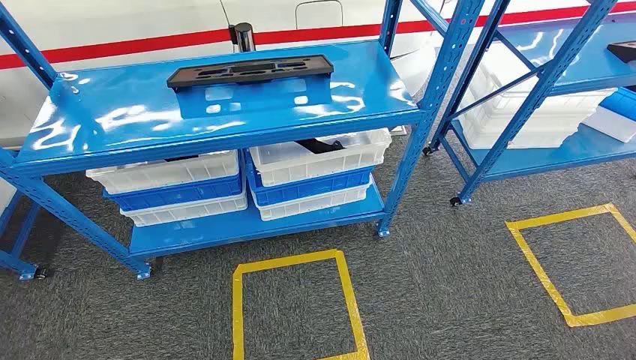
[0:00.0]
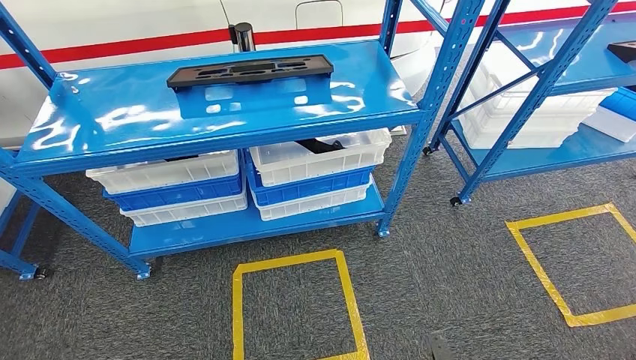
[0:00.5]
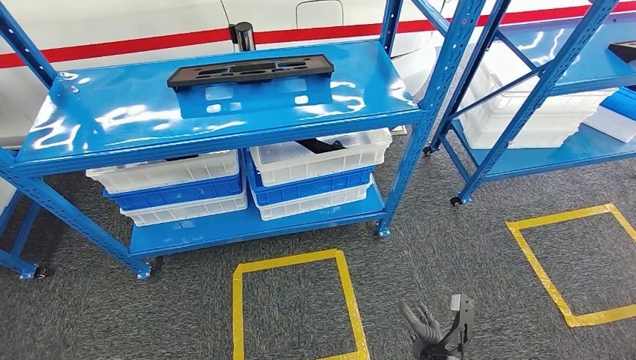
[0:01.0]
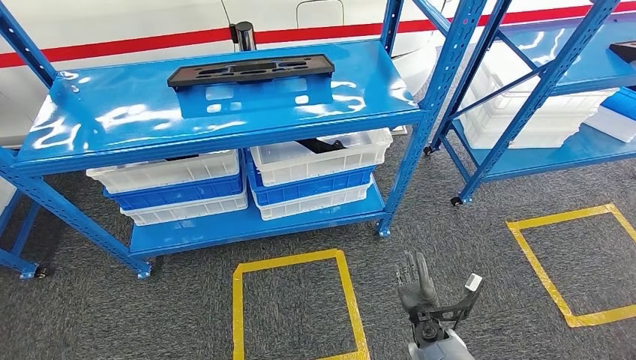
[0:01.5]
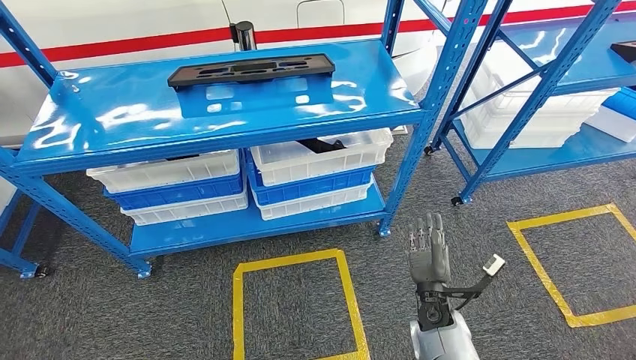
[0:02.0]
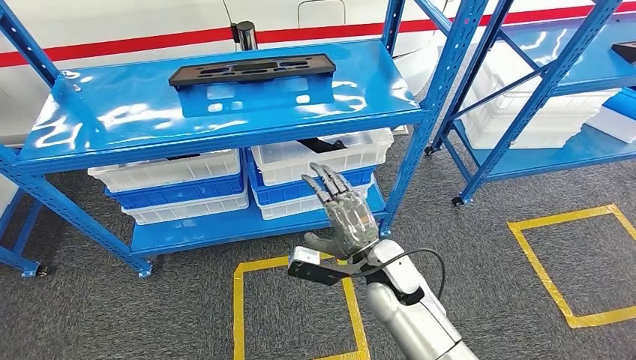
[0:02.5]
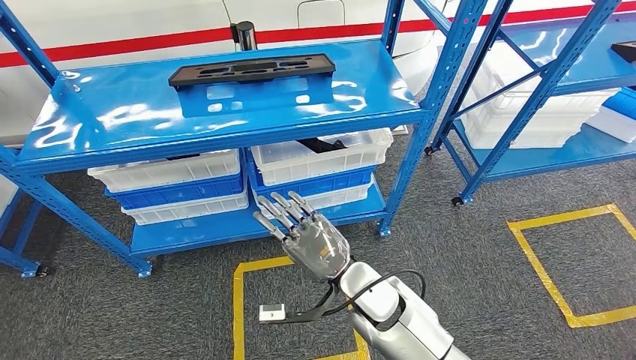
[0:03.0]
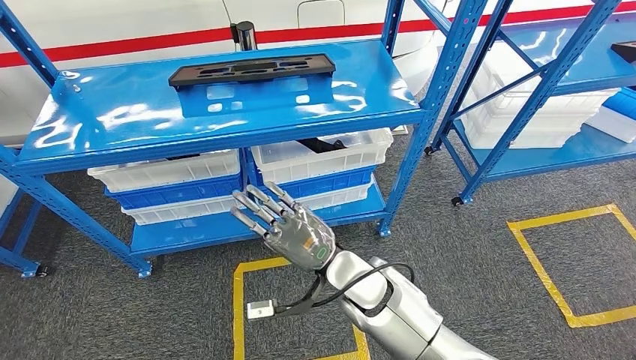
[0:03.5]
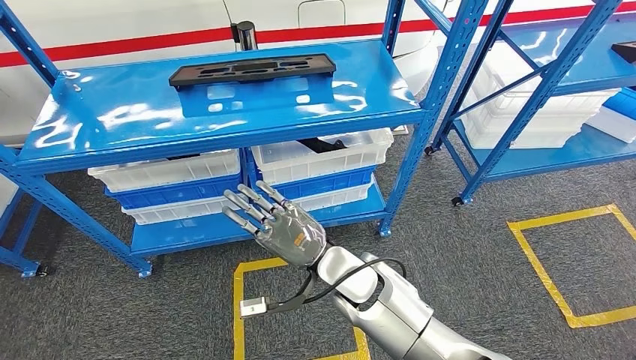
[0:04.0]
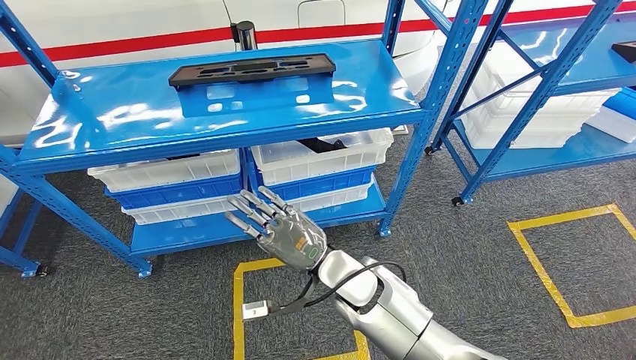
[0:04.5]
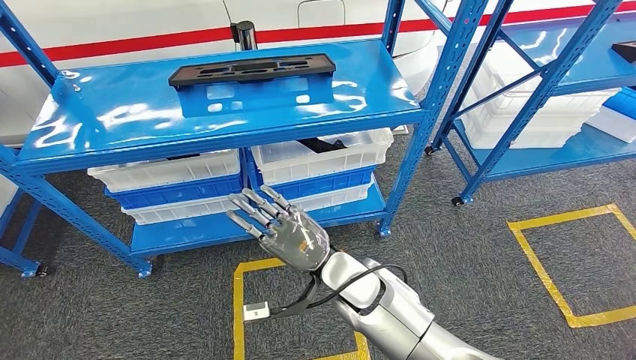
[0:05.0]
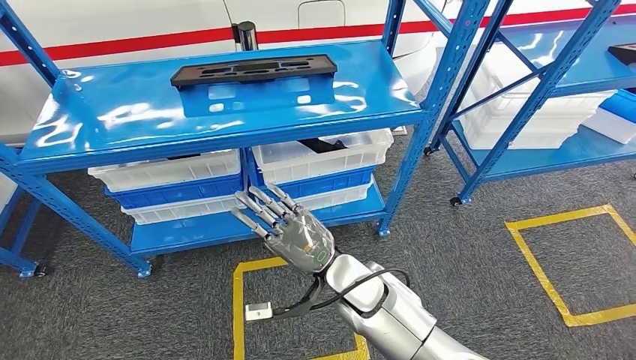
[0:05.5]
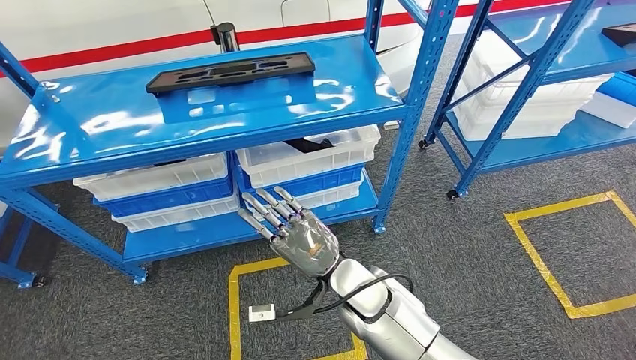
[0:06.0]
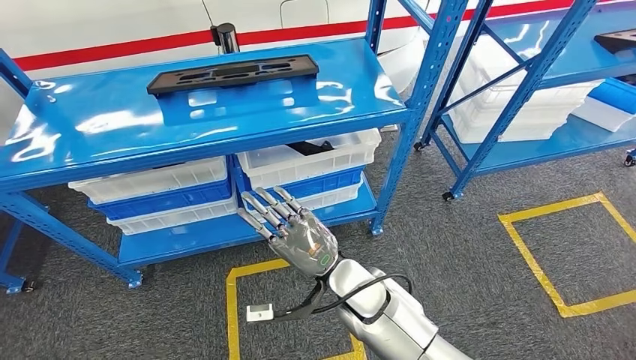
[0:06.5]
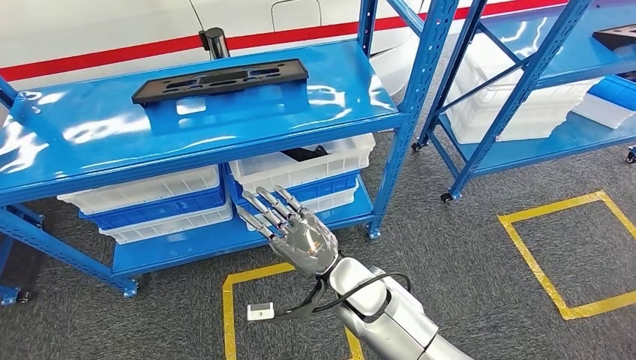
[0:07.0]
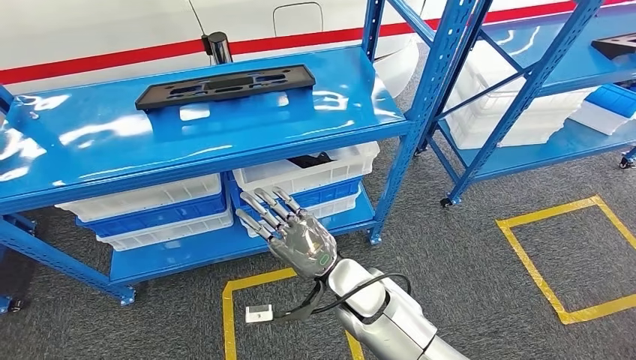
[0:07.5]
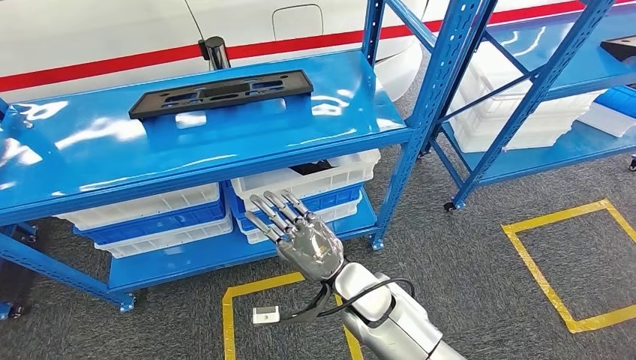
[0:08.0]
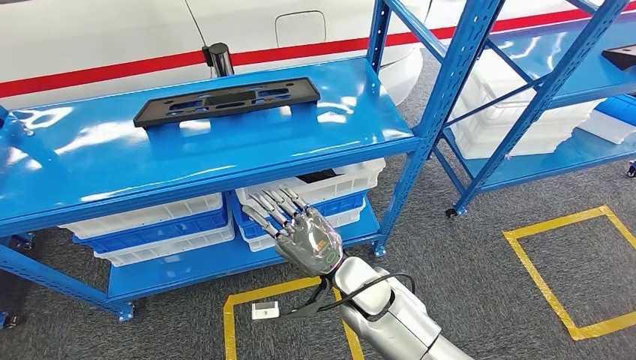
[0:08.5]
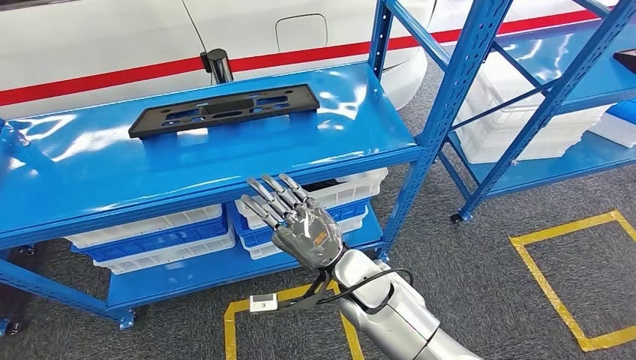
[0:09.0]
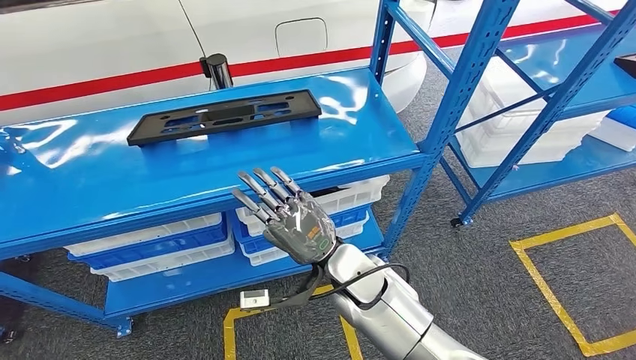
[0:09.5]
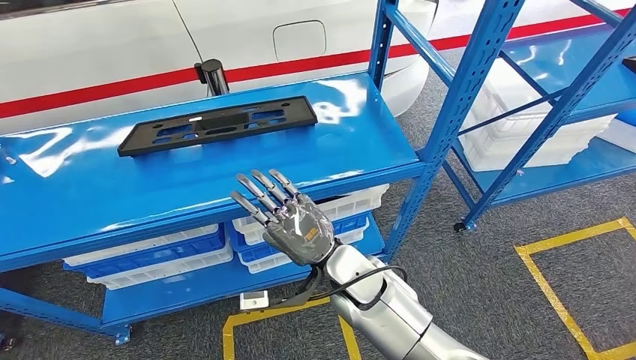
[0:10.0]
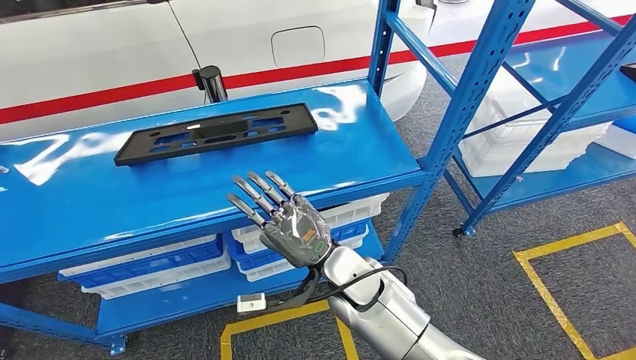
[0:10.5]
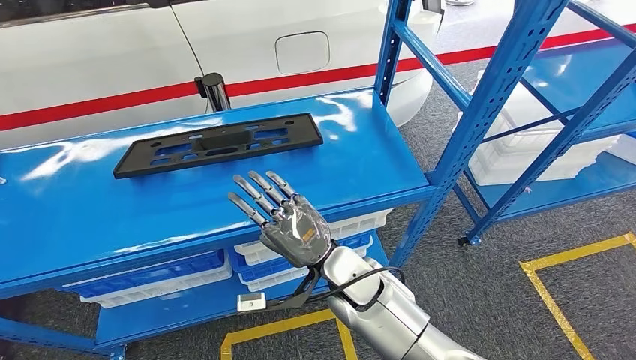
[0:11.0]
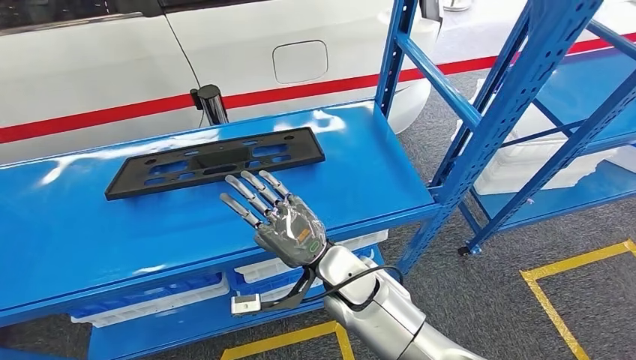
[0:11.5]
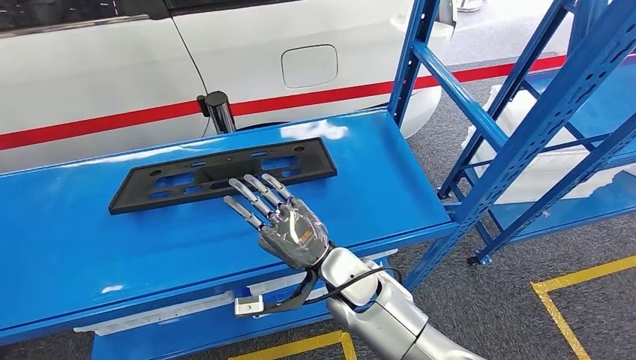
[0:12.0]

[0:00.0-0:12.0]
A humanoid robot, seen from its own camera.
0:02.0 to 0:04.0: The right hand shifts some 25 cm to the left and upward.

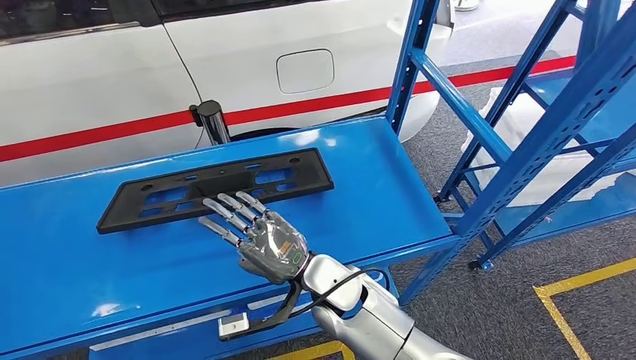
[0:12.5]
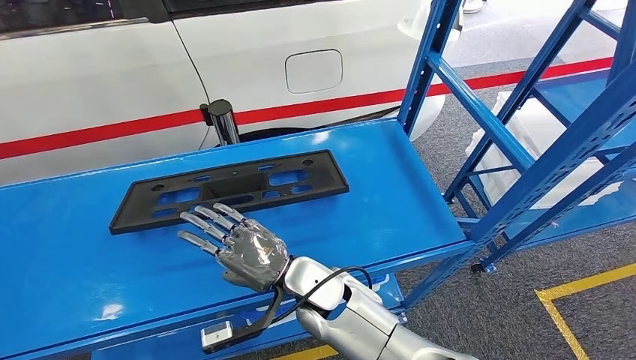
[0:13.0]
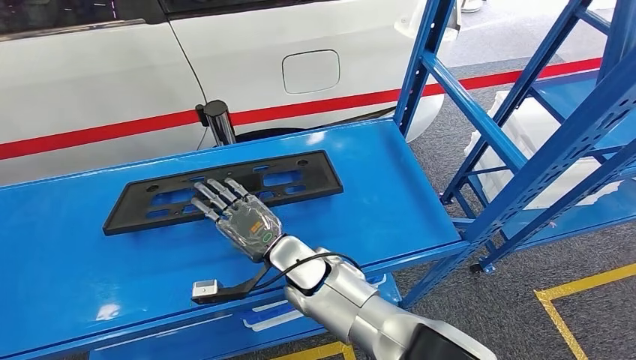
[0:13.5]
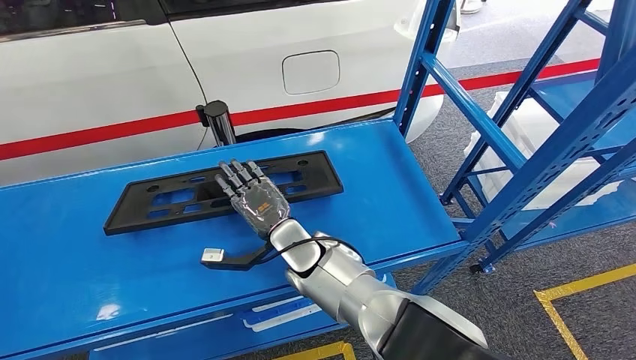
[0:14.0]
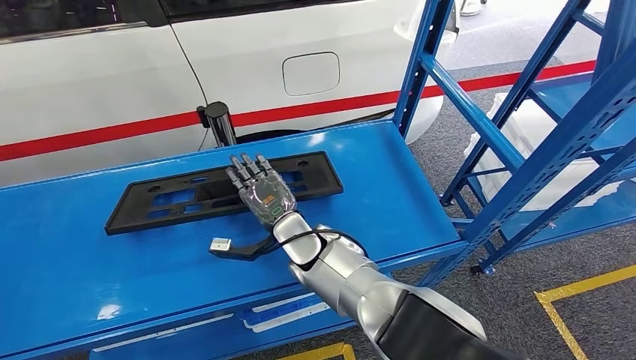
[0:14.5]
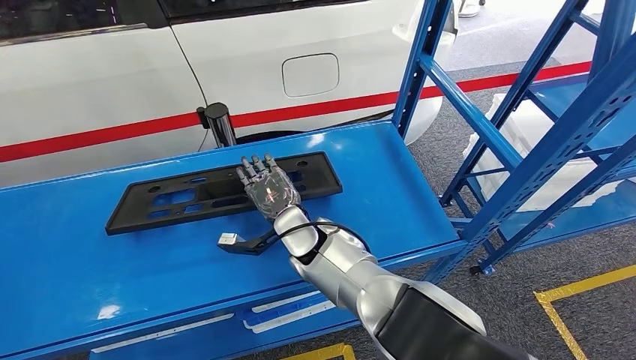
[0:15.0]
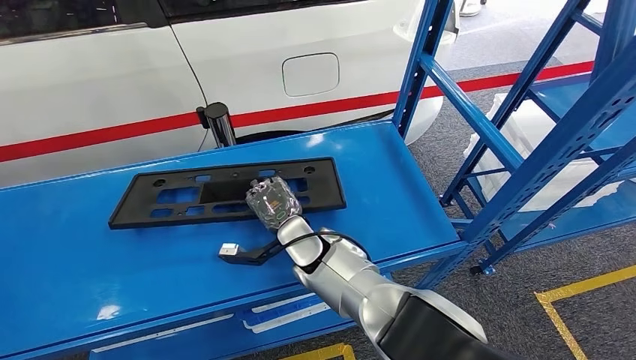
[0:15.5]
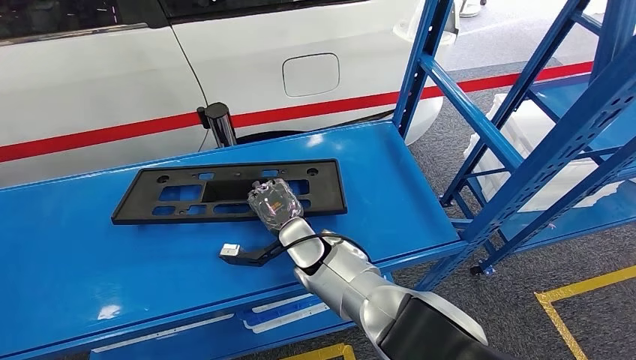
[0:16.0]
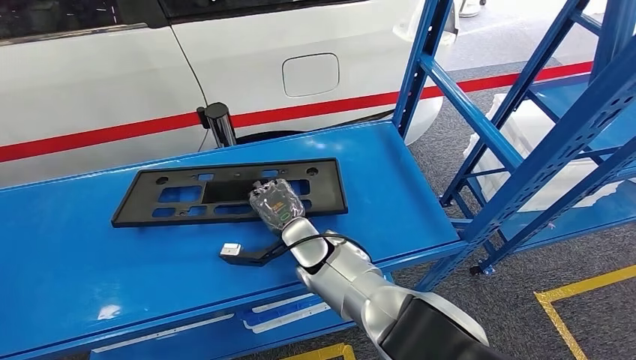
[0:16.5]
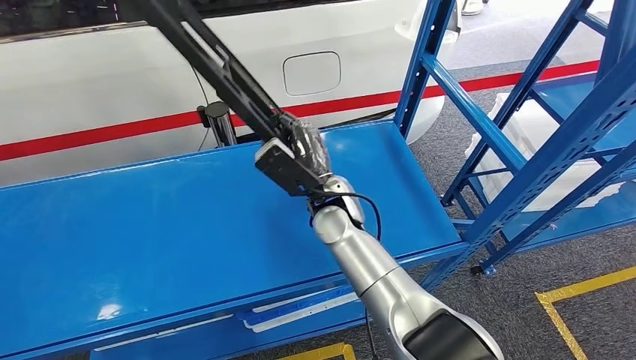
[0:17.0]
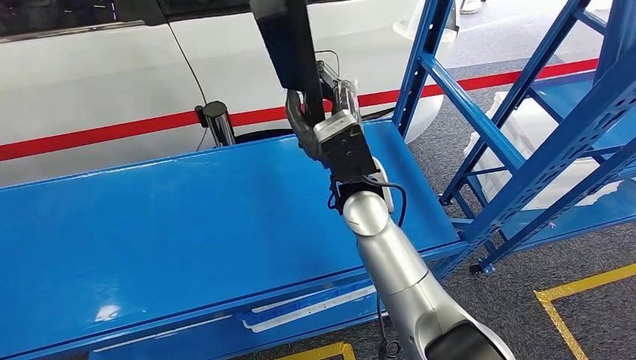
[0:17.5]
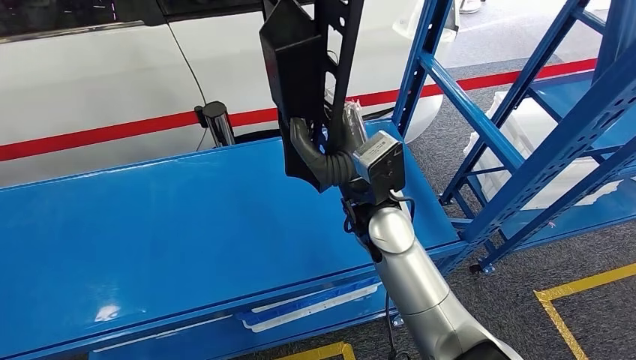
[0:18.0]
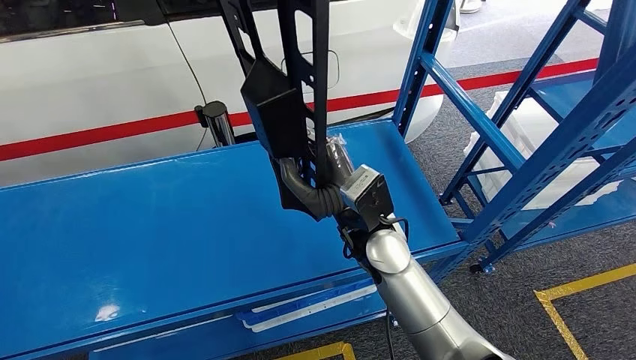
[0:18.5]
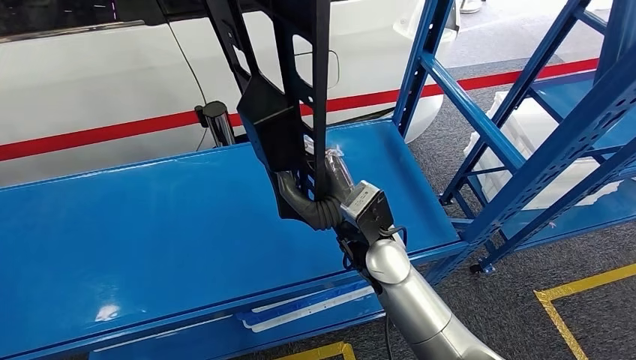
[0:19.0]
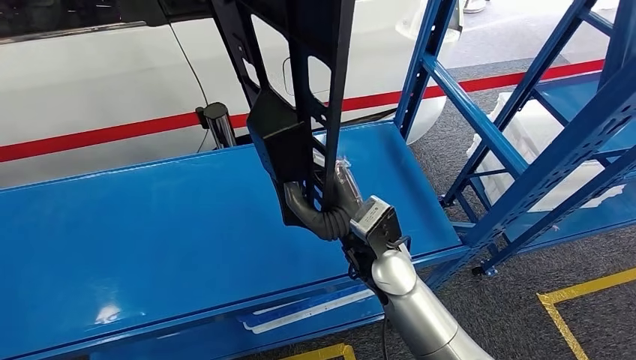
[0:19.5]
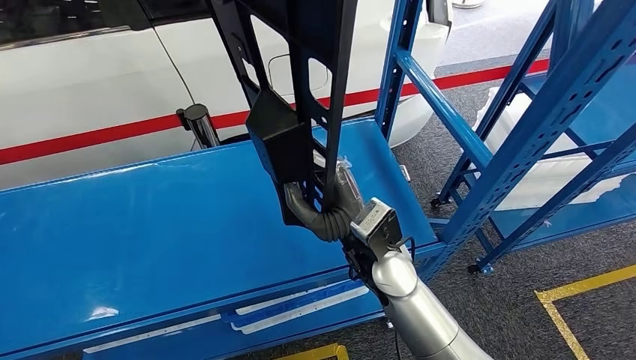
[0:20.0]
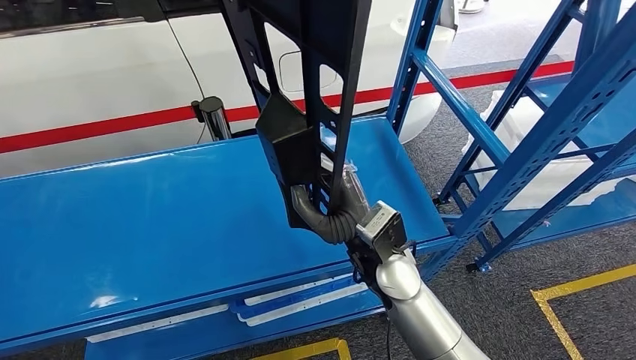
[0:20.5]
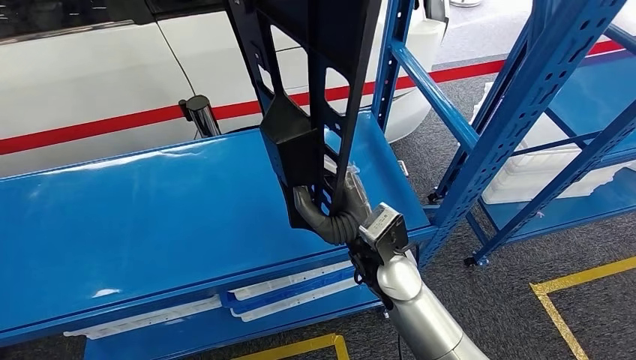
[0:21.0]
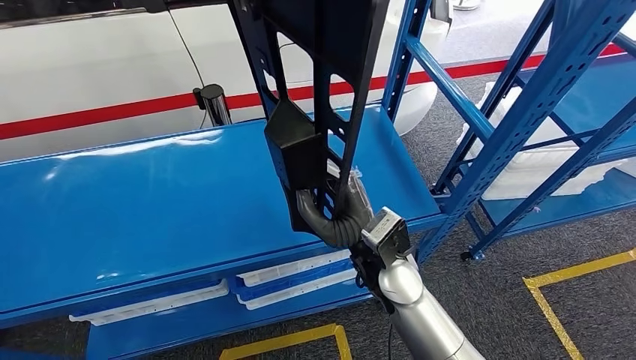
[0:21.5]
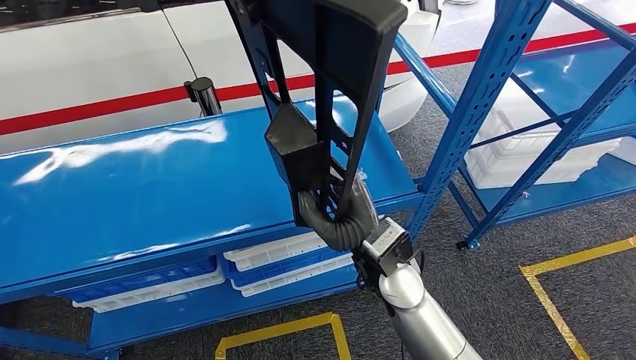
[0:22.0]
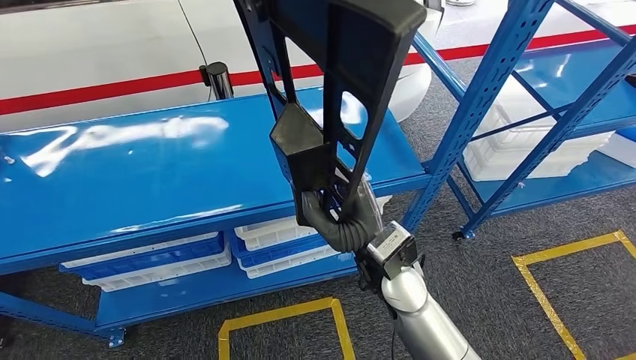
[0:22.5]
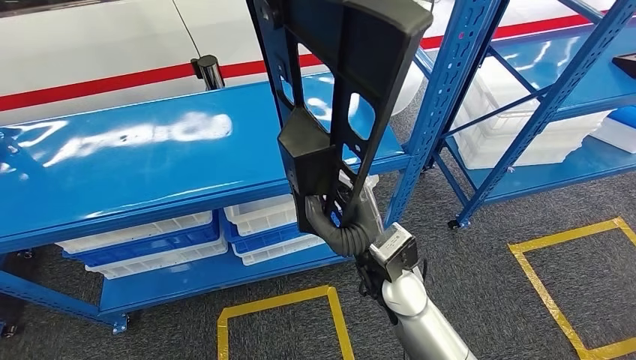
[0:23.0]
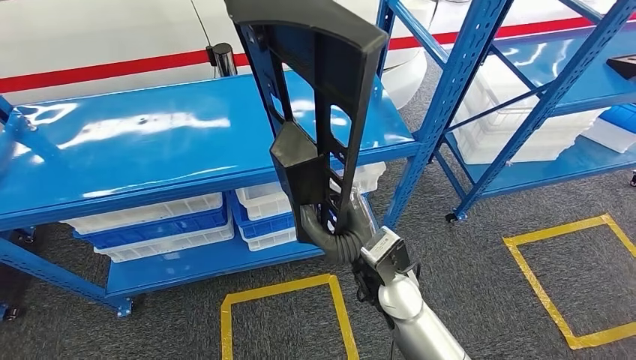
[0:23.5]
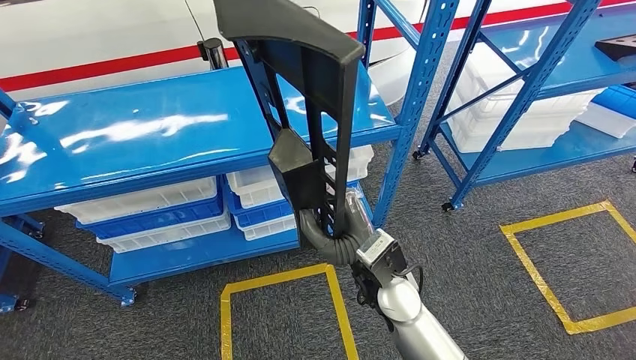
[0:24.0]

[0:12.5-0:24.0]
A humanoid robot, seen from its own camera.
Step, 0:12.5 to 0:17.5: Pick up the large material from the shelf.
0:14.5 to 0:16.5: The hands stay close to where they were, moving slightly.
